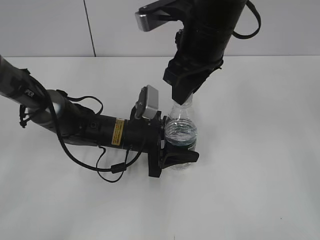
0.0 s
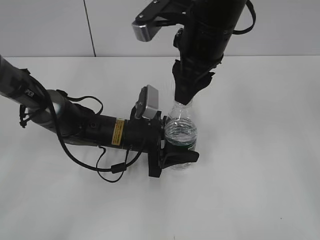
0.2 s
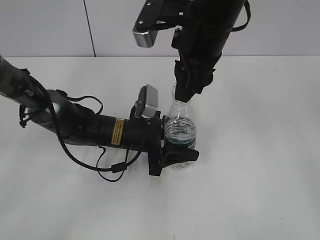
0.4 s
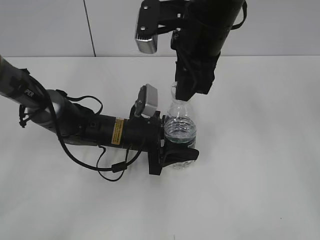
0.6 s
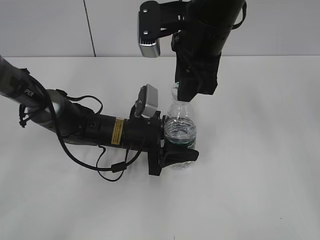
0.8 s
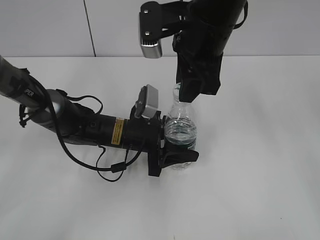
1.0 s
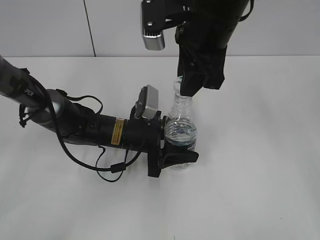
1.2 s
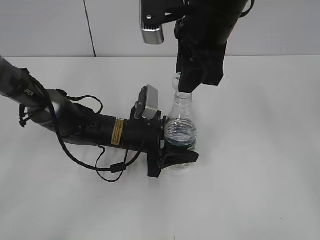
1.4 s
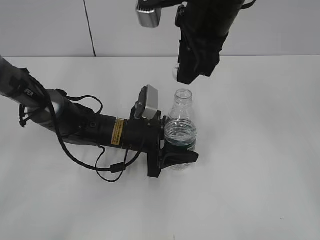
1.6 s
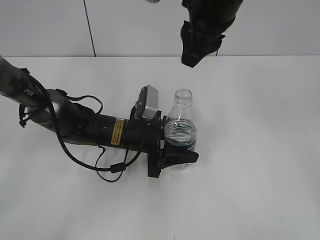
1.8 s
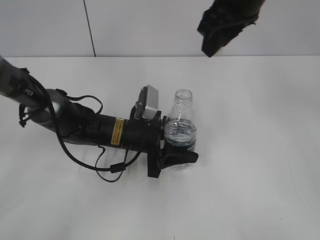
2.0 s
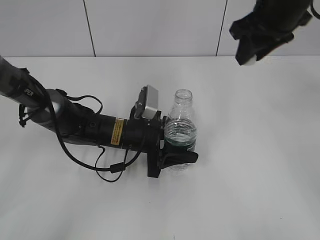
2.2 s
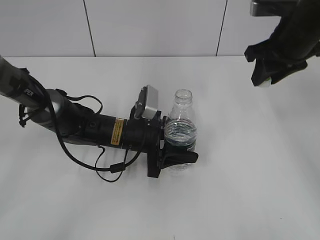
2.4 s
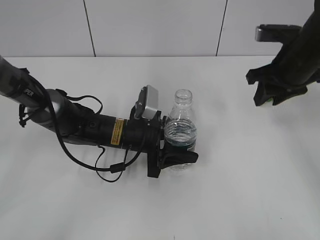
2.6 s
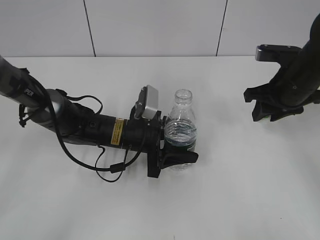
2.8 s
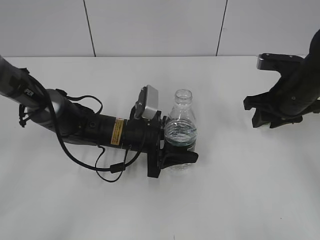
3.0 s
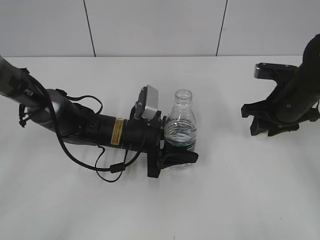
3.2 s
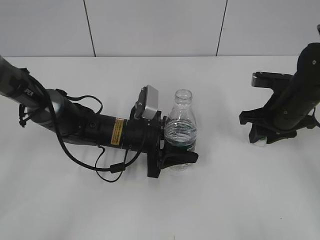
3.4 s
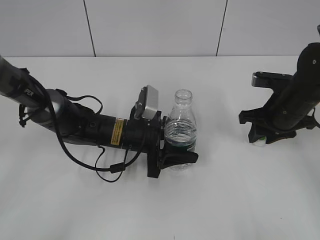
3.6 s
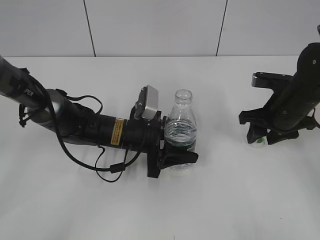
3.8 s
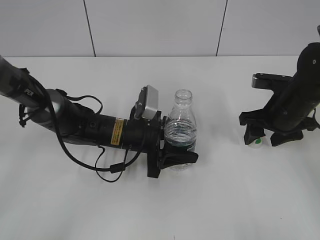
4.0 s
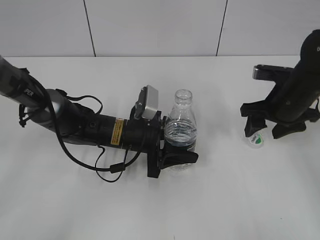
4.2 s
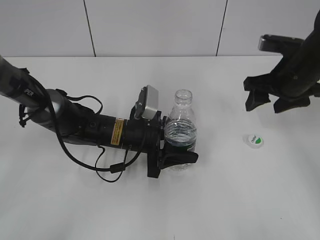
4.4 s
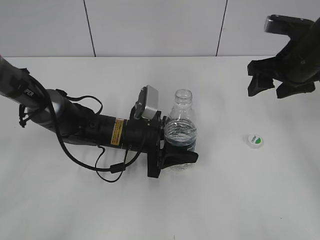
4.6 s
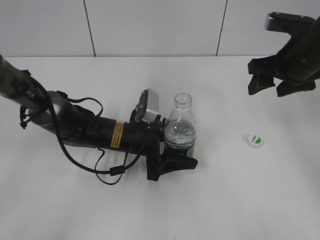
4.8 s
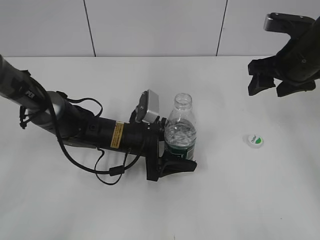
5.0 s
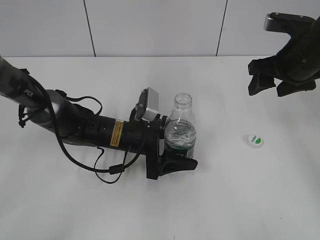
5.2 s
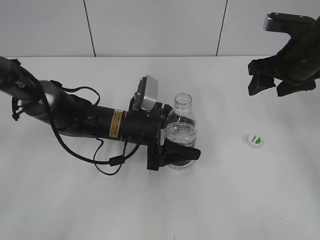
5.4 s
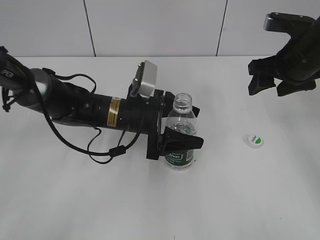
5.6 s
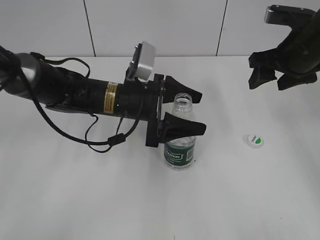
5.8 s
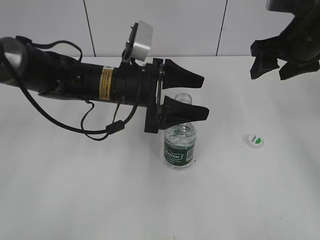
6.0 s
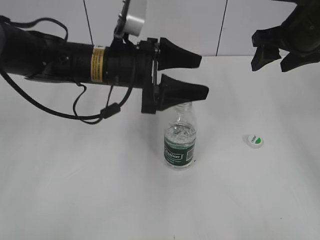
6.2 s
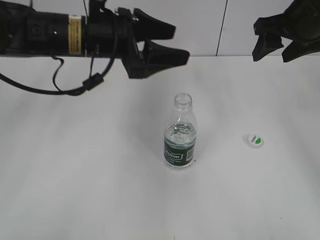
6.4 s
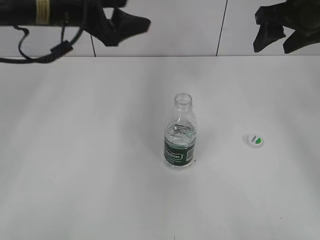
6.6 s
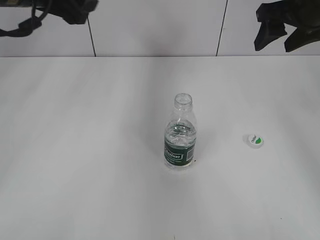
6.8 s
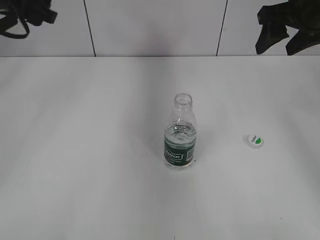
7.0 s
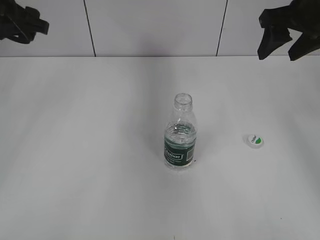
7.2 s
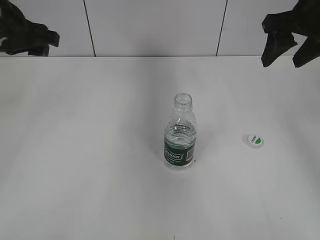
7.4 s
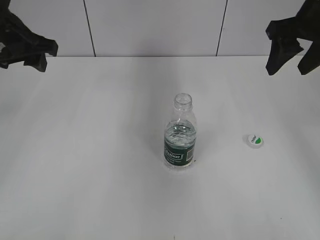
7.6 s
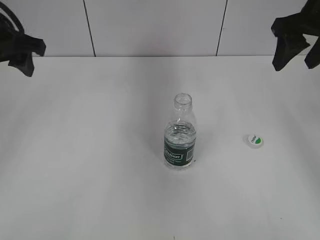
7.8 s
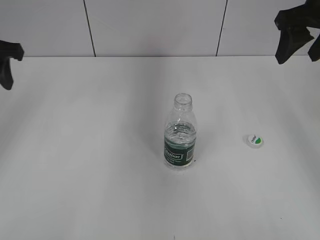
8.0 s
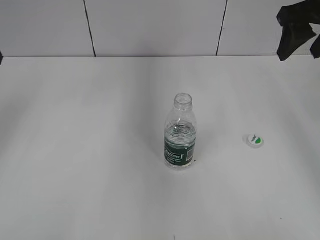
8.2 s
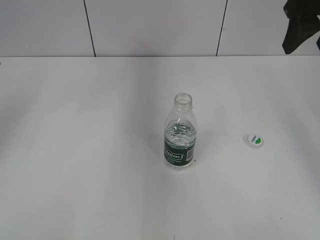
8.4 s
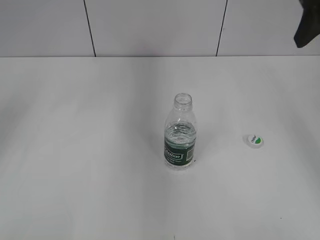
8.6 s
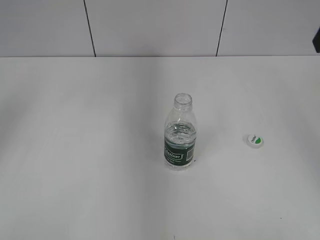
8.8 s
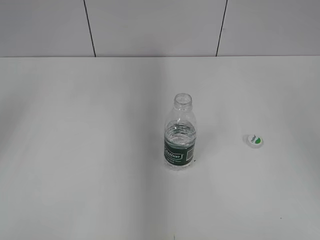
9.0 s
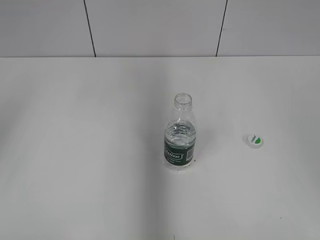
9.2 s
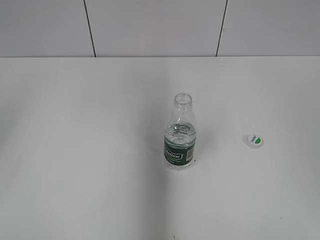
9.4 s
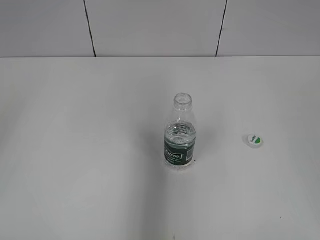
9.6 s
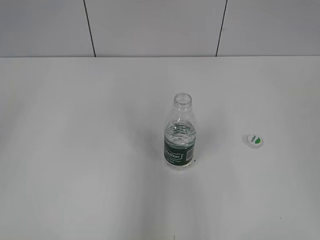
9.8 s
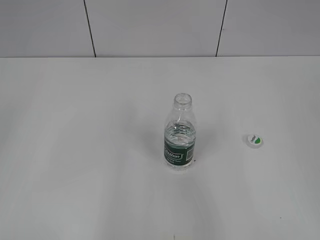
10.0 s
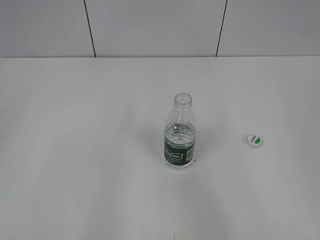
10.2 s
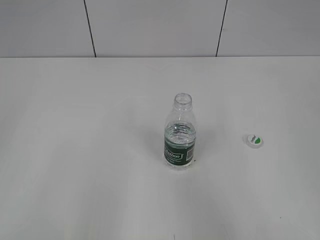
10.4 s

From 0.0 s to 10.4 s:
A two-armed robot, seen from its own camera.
Step, from 1.6 s to 4.2 s: Place the bottle cap on the table with the right gripper.
Step, from 4.4 s to 6.0 s: Place the bottle on the table with the left gripper.
From 1.4 s to 3.0 s: The right gripper shifts roughly 25 cm to the right and downward.
From 3.0 s to 4.4 s: The right gripper opens.
From 4.4 s to 6.0 s: The right gripper heads upward, covering some 5 cm. Meanwhile the left gripper shifts some 10 cm upward, and opens its fingers.
From 6.0 s to 7.4 s: The left gripper is displaced to the left and upward by about 20 cm. Meanwhile the right gripper moves upward, approximately 5 cm.
From 7.4 s to 9.0 s: The left gripper shifts about 10 cm to the left and backward. The right gripper travels backward and upward by some 15 cm.
From 9.0 s to 10.4 s: Both grippers travel together backward, roughly 25 cm.

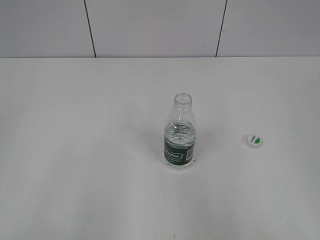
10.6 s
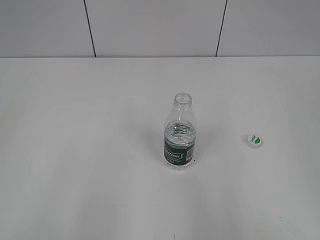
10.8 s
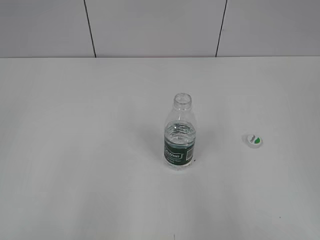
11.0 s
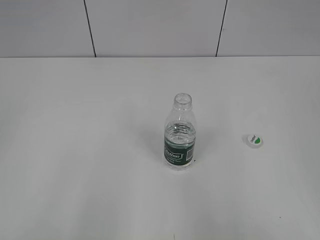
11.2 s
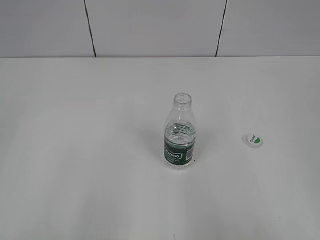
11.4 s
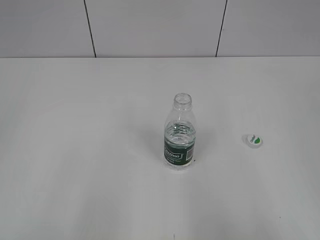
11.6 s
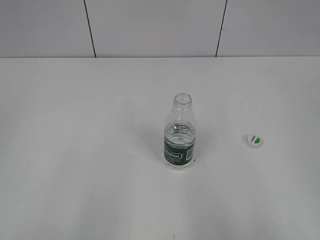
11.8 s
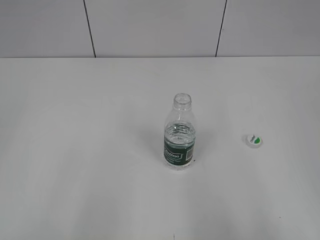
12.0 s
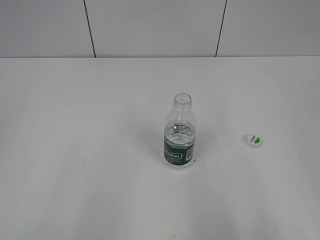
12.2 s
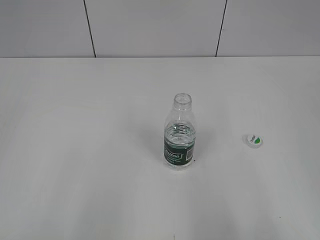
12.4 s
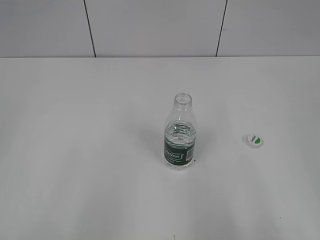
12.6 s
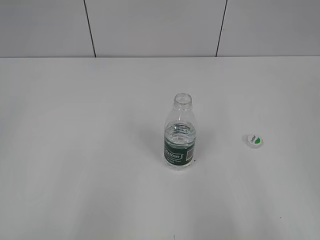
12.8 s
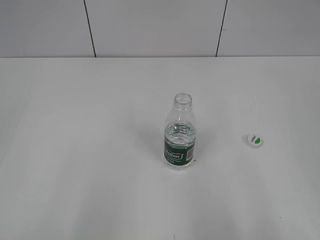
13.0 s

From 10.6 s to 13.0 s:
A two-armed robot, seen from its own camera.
From 11.8 s to 13.0 s: Both grippers stay put.

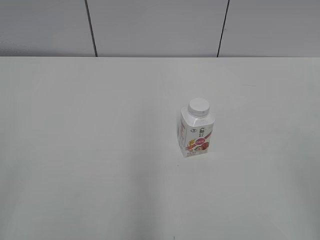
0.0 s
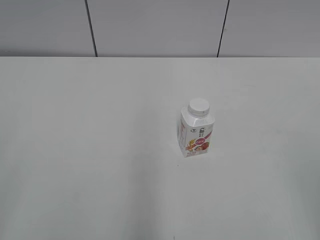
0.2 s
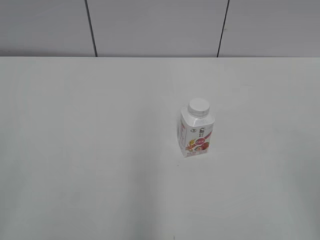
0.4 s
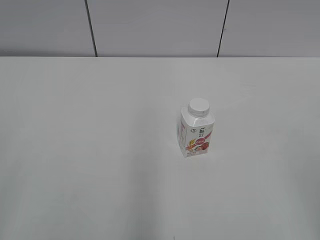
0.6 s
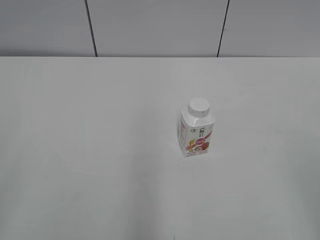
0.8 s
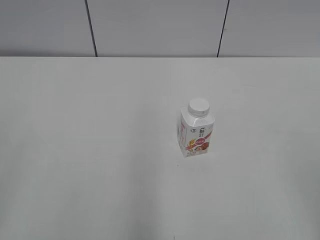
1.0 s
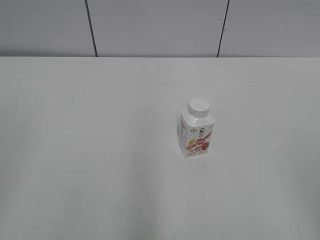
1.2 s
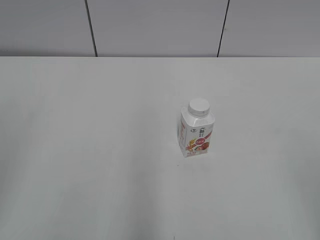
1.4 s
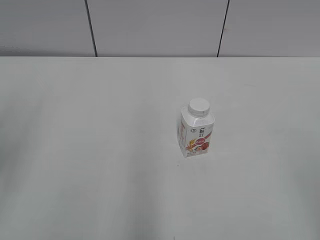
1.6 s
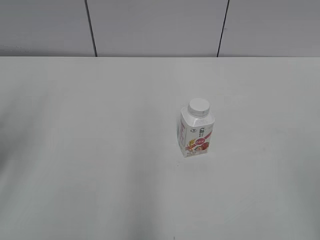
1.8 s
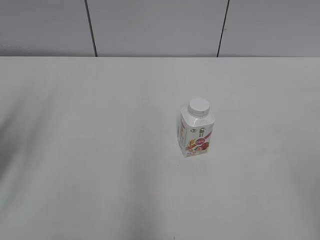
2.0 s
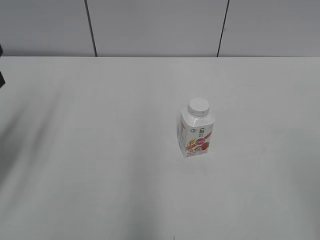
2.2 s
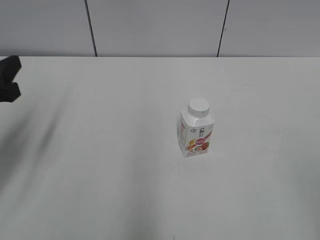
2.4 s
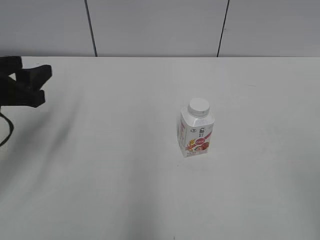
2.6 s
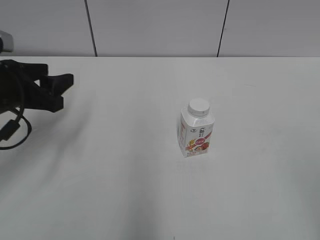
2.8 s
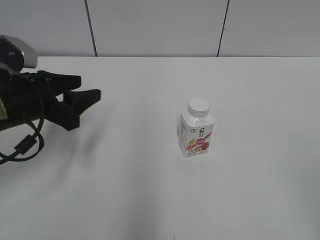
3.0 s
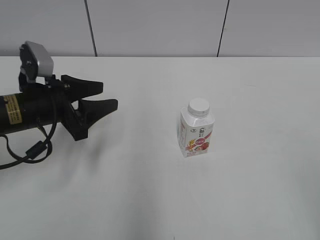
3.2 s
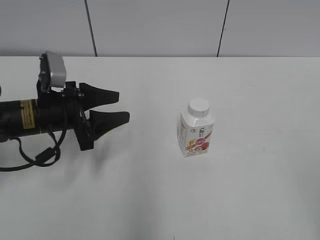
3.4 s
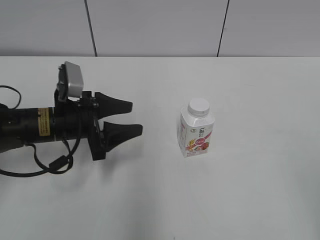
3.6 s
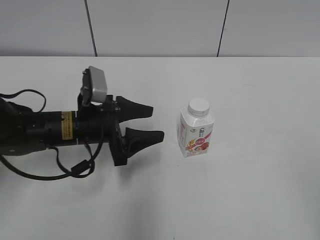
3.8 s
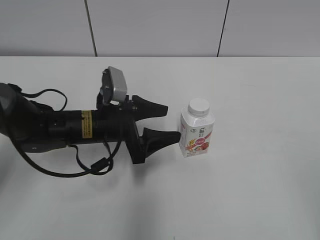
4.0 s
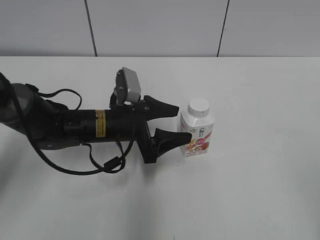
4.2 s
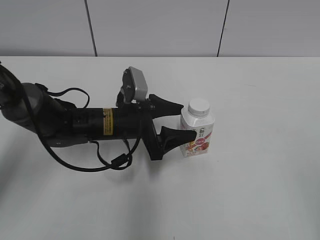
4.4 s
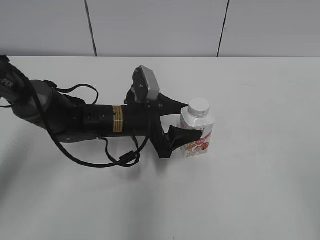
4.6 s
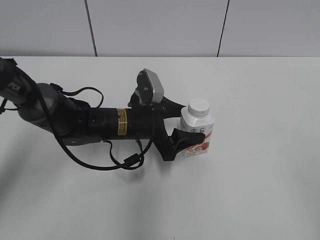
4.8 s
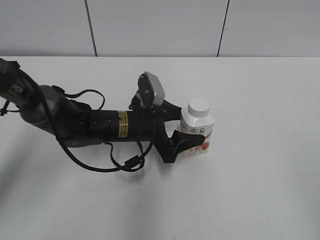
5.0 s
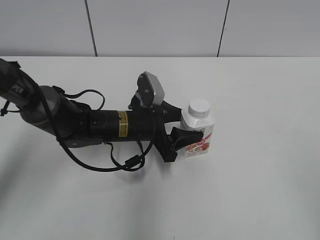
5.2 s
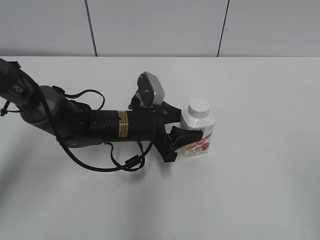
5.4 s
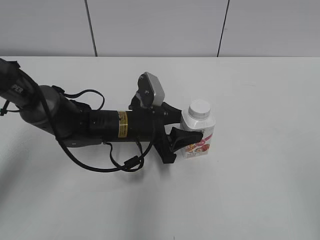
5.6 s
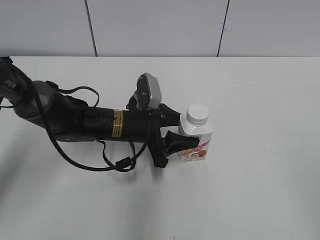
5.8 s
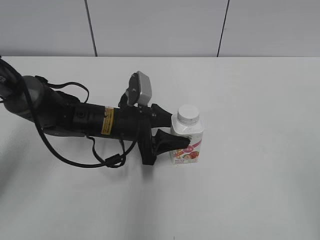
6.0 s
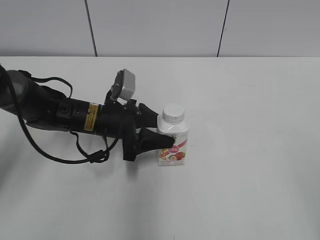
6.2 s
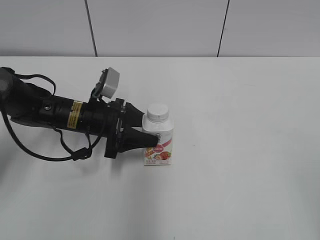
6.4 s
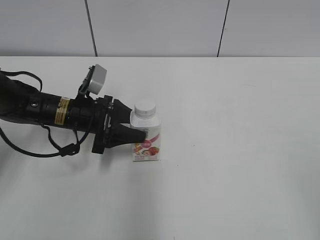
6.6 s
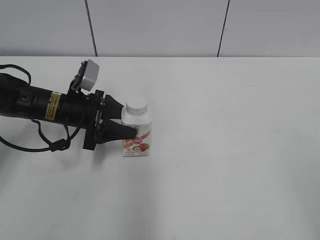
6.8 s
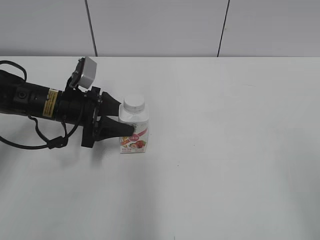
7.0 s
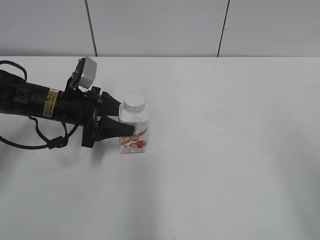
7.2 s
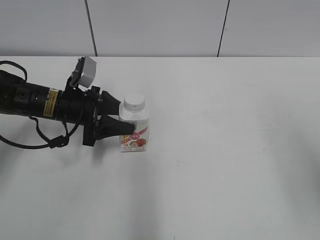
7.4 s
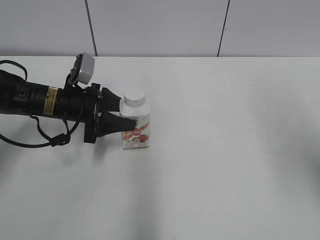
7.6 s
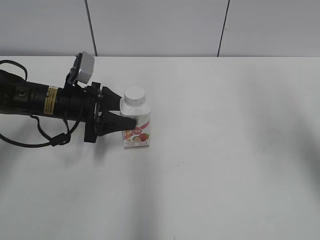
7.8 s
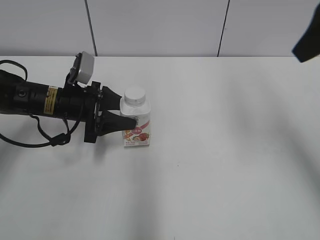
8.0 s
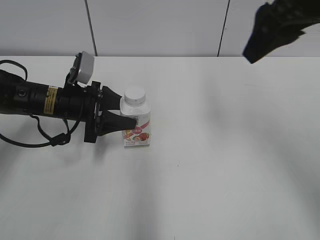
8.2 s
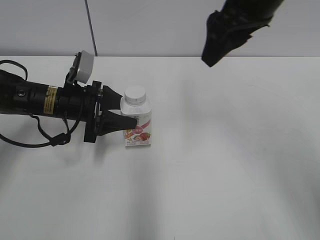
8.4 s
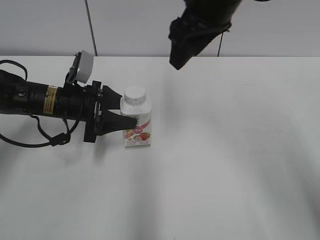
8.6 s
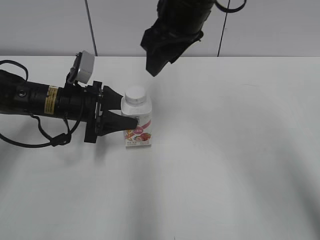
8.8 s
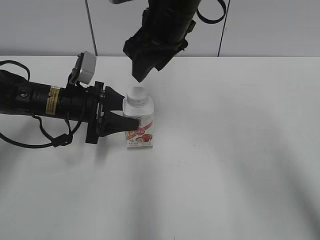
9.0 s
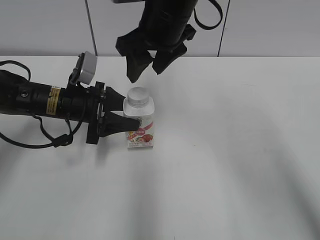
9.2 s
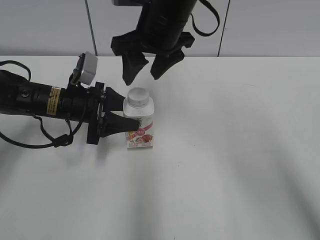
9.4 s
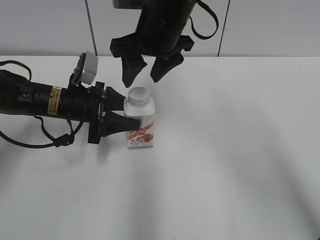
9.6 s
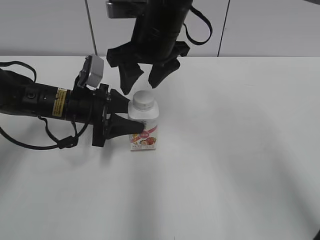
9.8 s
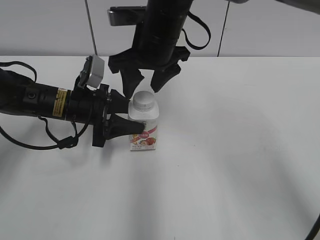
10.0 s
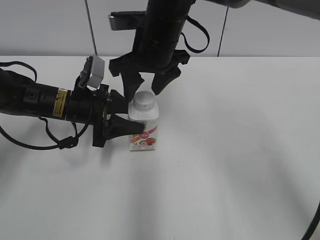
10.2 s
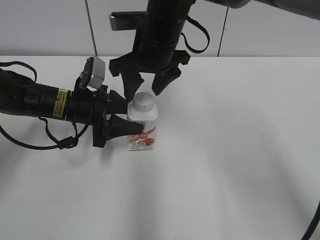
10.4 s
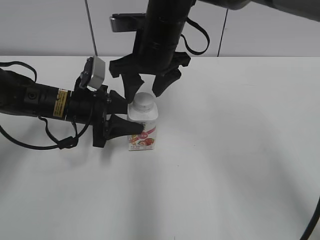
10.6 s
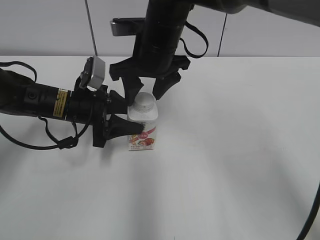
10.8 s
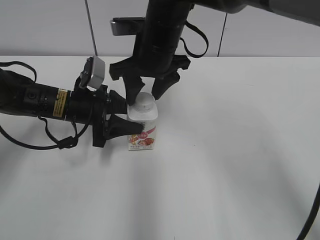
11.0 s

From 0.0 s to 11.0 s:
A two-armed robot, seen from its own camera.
Step, from 0.0 s to 5.4 s: Grab the Yili Changqing with the left hand.
Step, from 5.8 s to 7.0 s: Move the Yili Changqing from right to left.
Step, from 7.2 s to 10.4 s: Move the Yili Changqing from left to right.
From 1.6 s to 3.2 s: The left gripper travels forward, downward and to the right by some 20 cm.
From 3.2 s to 4.8 s: The left gripper is displaced to the right and downward by about 15 cm, and opens.
From 4.8 s to 6.2 s: The left gripper heads to the left, covering about 5 cm, and closes its fingers.
From 6.2 s to 7.8 s: The right gripper travels forward by about 25 cm, while the left gripper travels to the left by some 5 cm.
From 7.8 s to 9.4 s: The right gripper is displaced to the left, forward and downward by approximately 30 cm.
From 9.4 s to 11.0 s: The grippers stay close to where they were, moving slightly.
